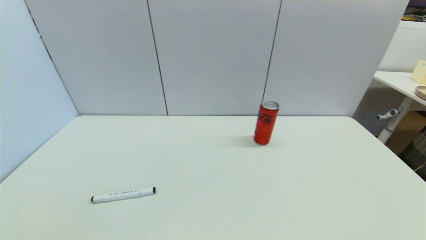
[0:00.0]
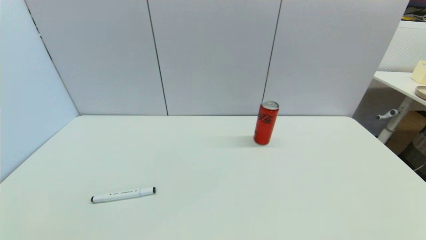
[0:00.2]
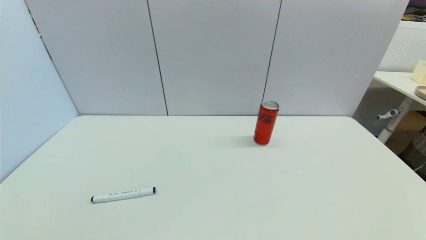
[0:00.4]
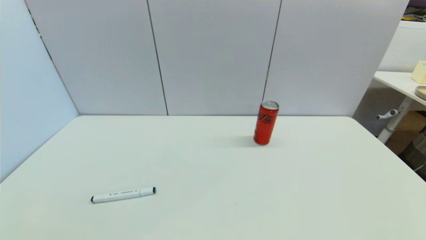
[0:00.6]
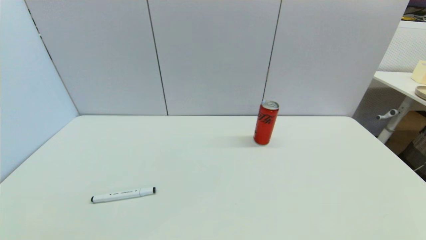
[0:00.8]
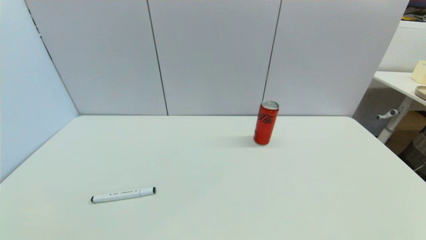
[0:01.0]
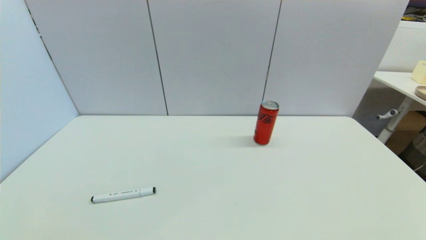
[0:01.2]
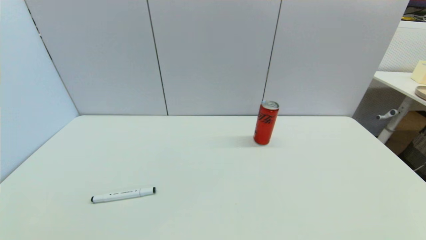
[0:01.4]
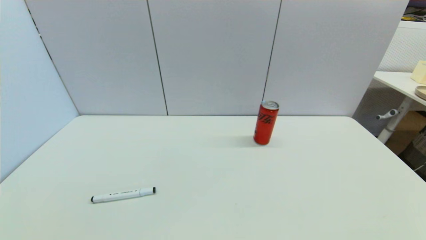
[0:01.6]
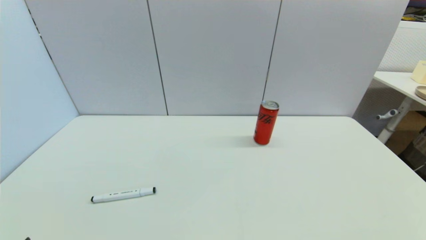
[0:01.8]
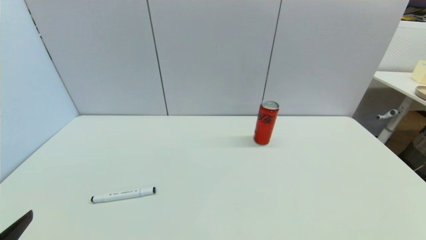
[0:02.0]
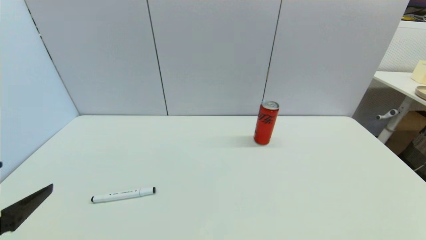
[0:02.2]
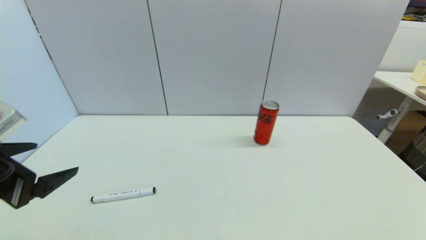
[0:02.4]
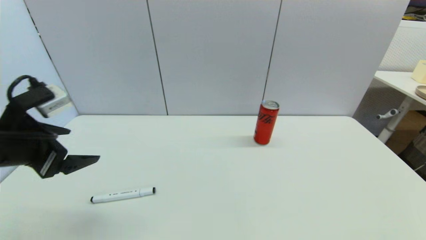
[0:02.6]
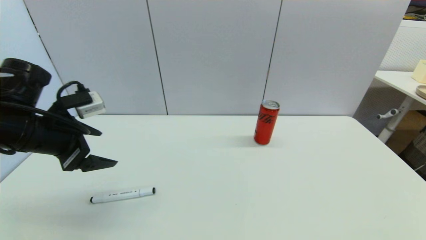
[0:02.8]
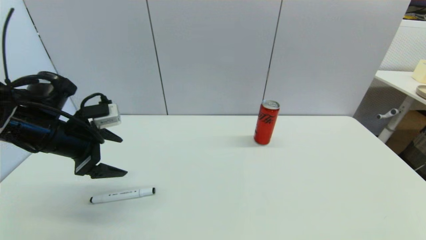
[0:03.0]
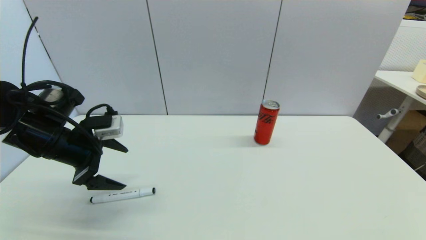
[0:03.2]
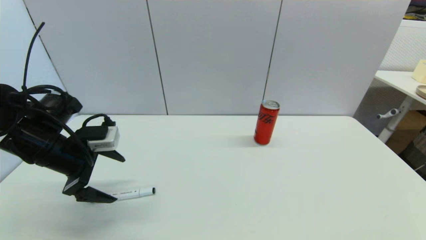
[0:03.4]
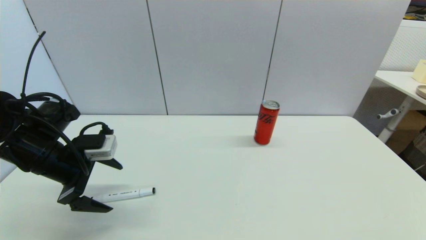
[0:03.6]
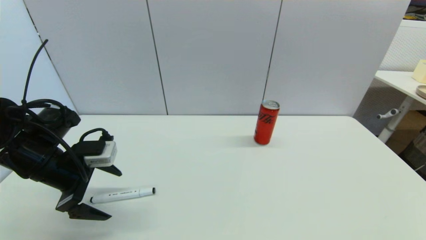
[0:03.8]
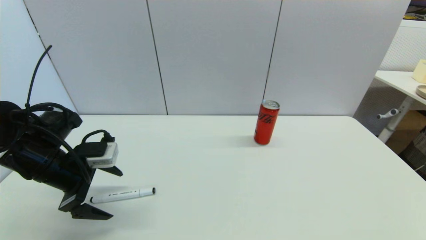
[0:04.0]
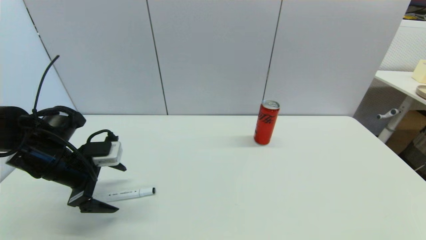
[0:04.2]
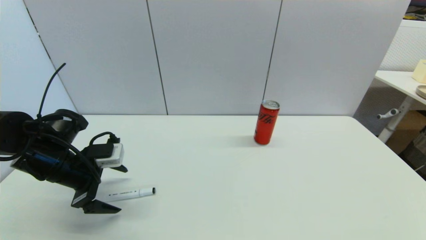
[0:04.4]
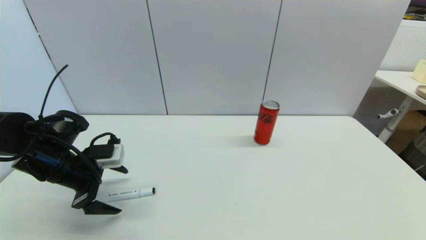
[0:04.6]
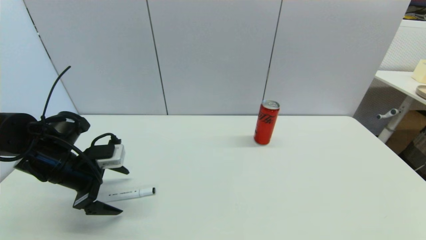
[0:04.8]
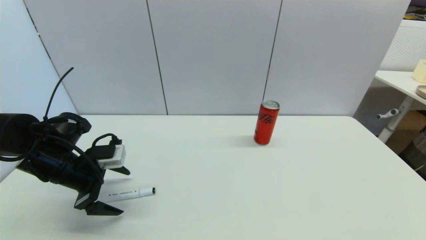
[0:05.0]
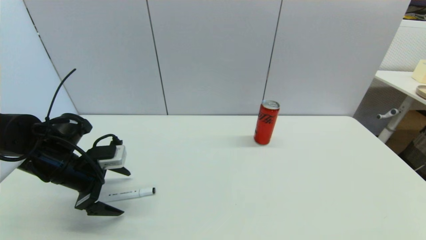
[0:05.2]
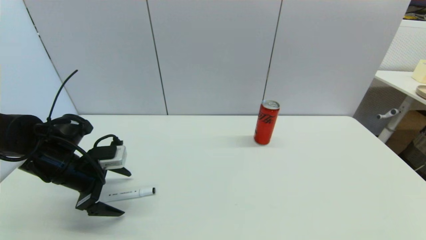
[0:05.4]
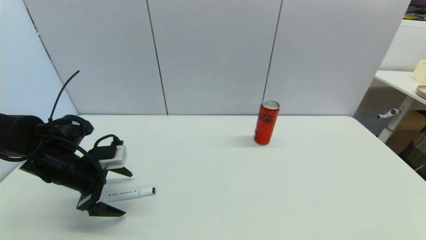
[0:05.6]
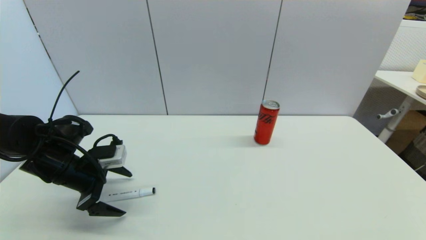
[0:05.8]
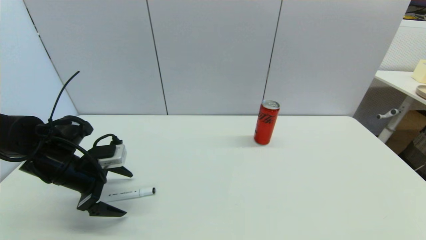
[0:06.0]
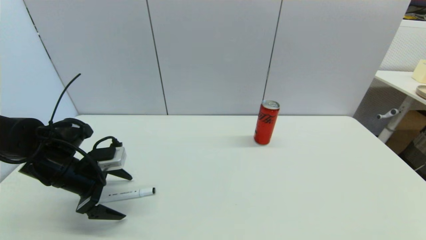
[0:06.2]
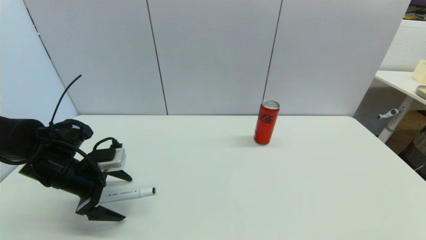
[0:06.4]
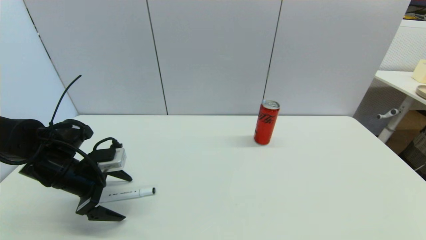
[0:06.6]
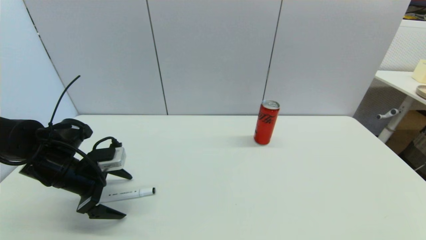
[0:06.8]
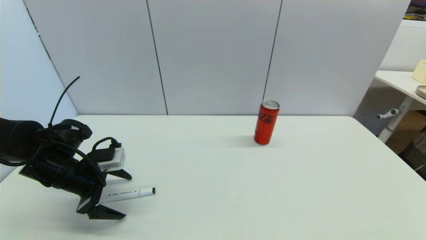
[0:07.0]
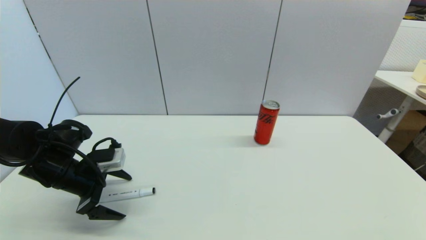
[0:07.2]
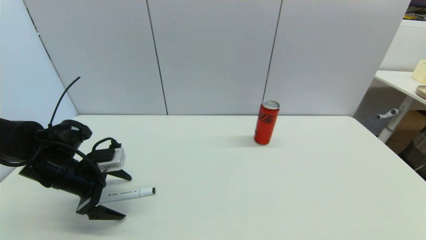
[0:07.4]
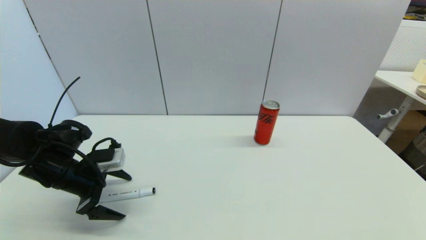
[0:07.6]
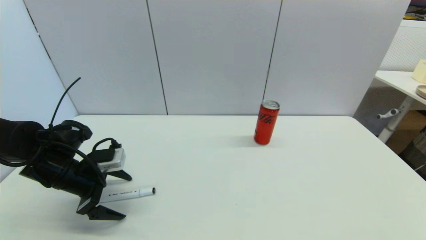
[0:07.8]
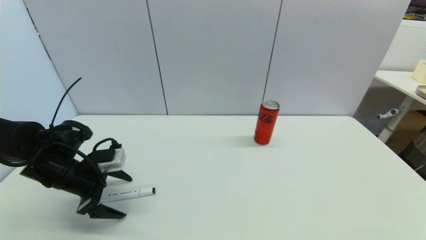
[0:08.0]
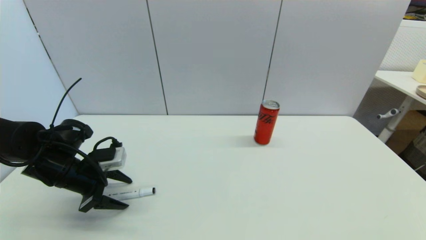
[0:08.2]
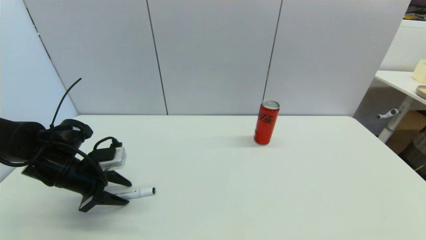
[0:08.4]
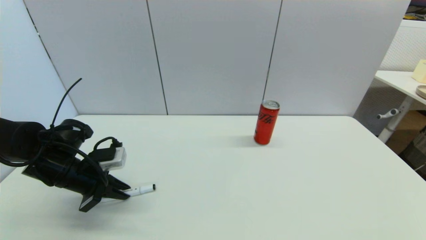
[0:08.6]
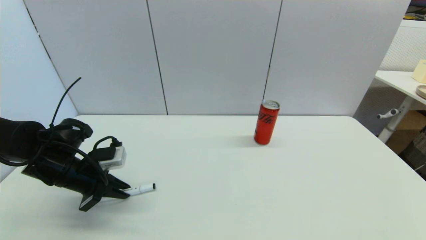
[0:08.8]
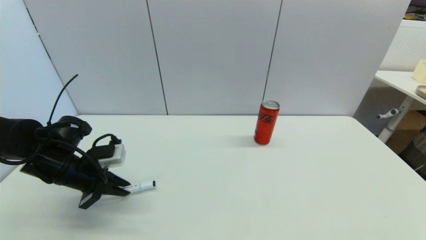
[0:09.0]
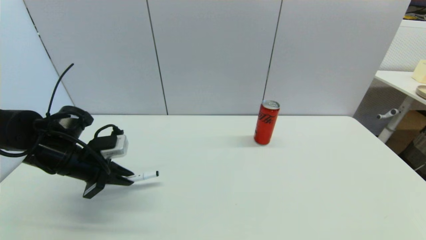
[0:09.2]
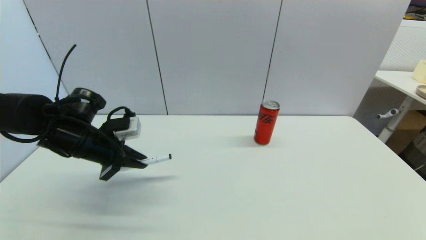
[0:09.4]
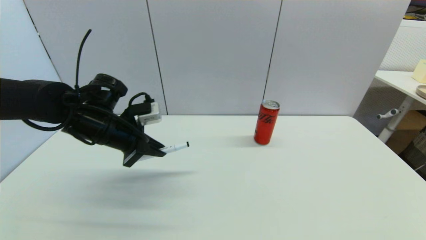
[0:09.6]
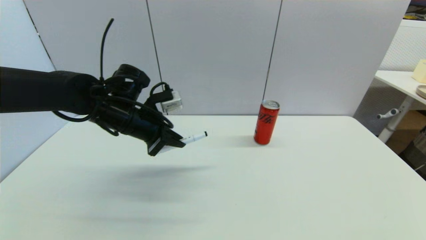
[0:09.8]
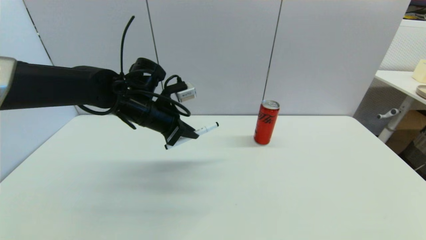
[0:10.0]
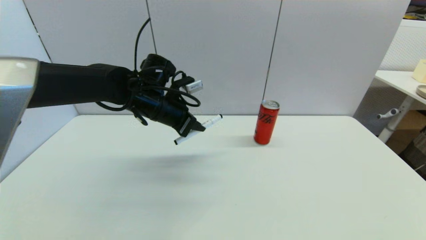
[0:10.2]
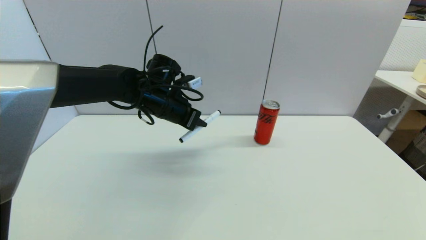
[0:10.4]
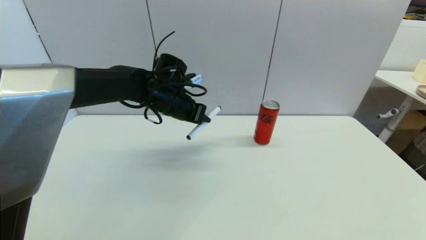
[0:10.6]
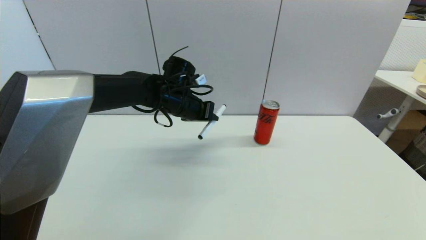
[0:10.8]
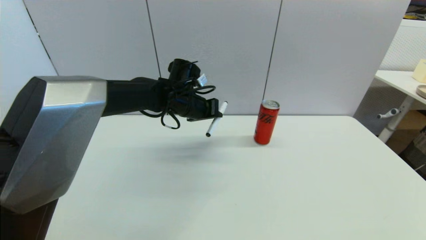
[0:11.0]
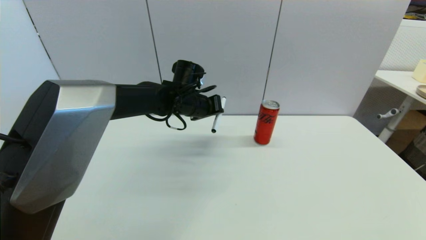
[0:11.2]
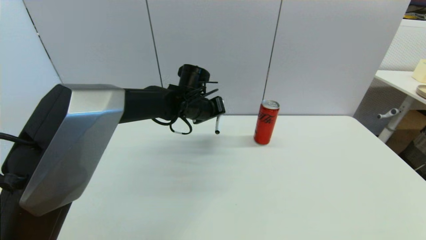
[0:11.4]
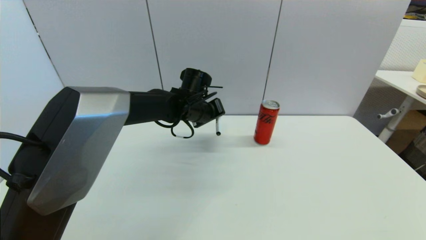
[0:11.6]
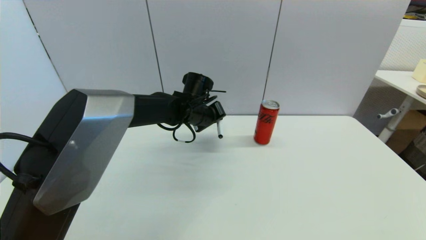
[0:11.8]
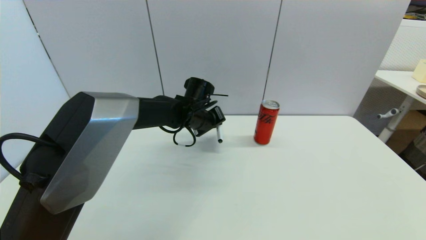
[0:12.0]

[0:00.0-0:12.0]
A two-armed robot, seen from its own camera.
Task of the whole recording: put the black marker in the designated position.
Step, 0:02.0 to 0:08.4: Grasp the Marker pen with left gripper.
0:01.6 to 0:03.0: The left gripper travels forward by approximately 30 cm.
0:03.0 to 0:04.4: The left gripper goes approximately 5 cm downward.
0:04.4 to 0:06.0: The grippers move only a little.
0:06.0 to 0:07.6: The two grippers keep their place.
0:07.6 to 0:09.0: The left gripper closes.
0:09.0 to 0:10.4: The left gripper goes approximately 25 cm to the right, forward and upward.
0:10.4 to 0:12.0: The left gripper is displaced to the right and downward by about 10 cm.

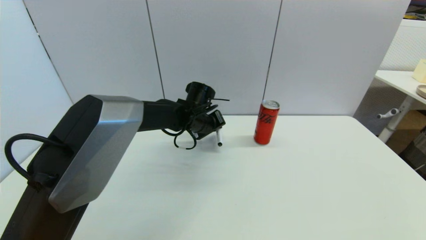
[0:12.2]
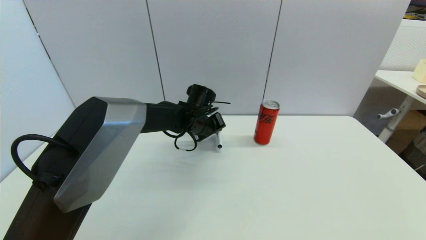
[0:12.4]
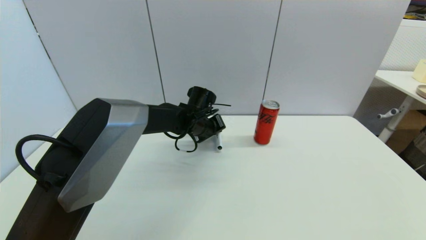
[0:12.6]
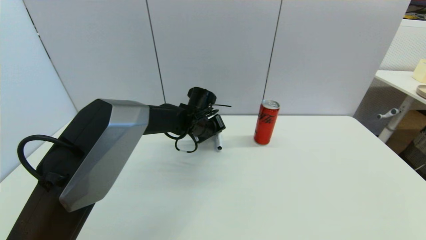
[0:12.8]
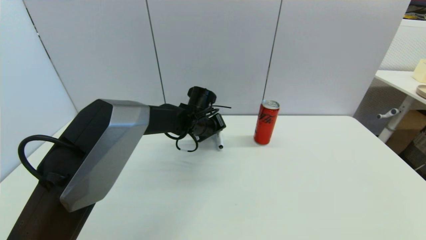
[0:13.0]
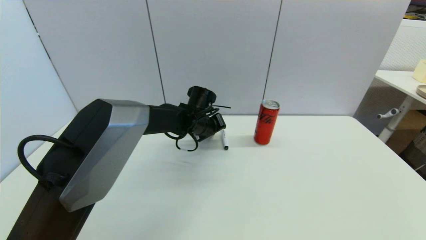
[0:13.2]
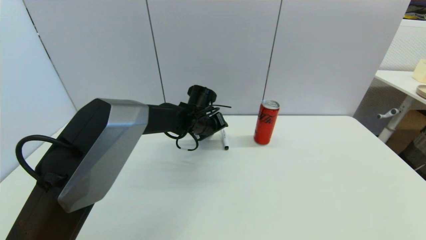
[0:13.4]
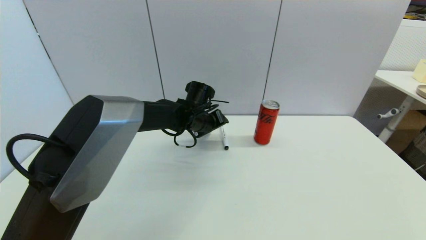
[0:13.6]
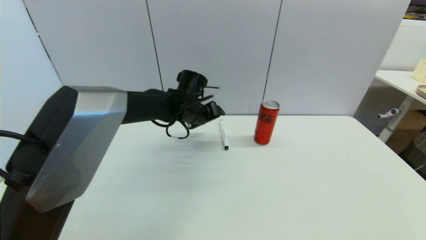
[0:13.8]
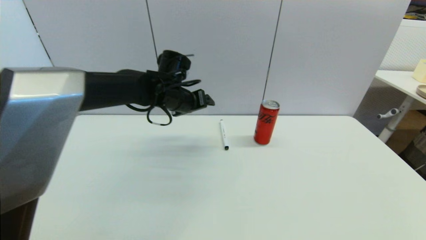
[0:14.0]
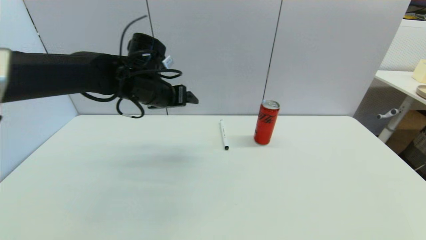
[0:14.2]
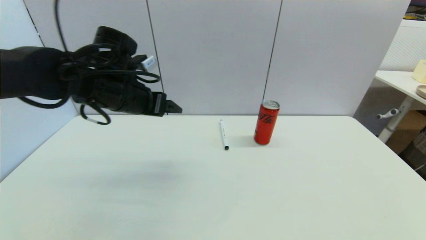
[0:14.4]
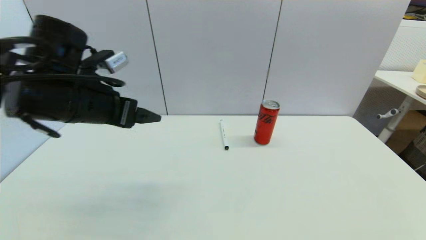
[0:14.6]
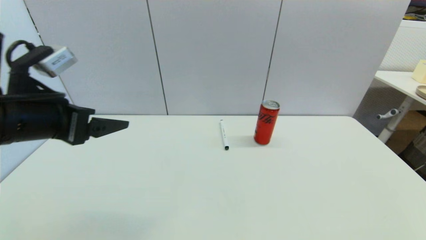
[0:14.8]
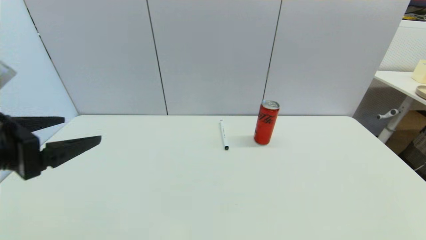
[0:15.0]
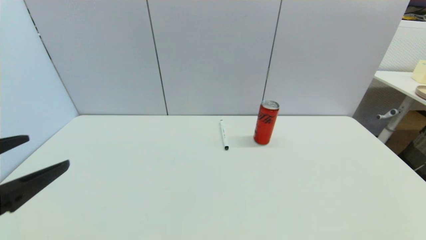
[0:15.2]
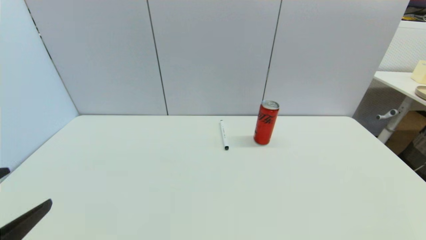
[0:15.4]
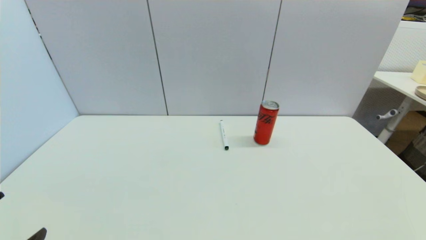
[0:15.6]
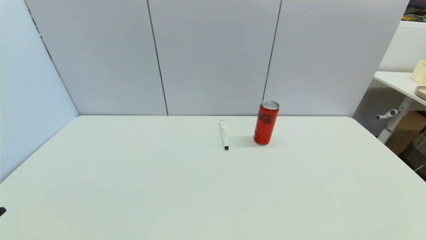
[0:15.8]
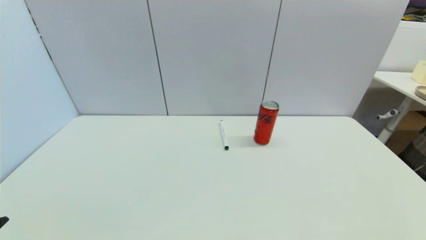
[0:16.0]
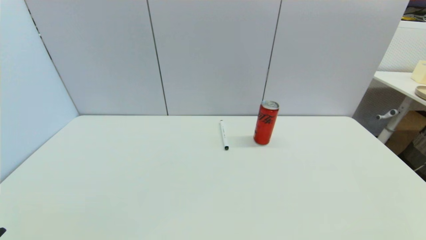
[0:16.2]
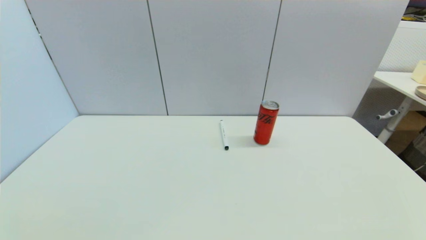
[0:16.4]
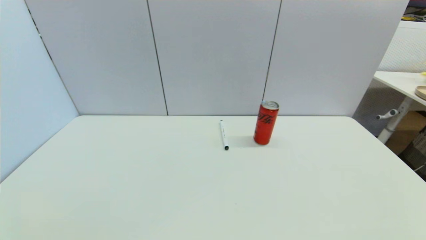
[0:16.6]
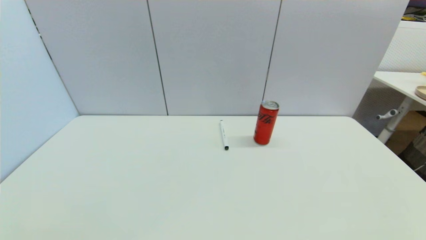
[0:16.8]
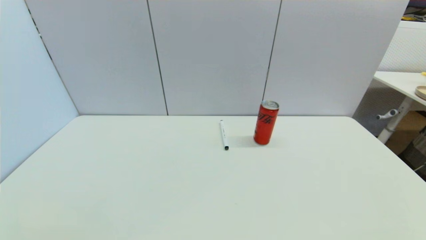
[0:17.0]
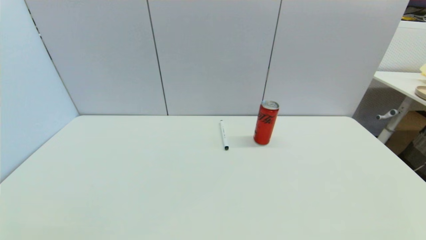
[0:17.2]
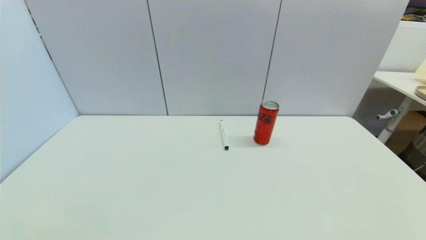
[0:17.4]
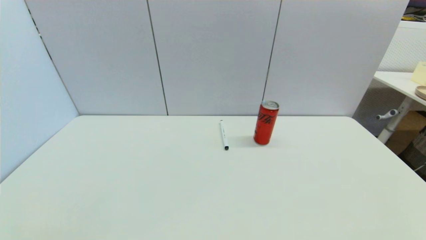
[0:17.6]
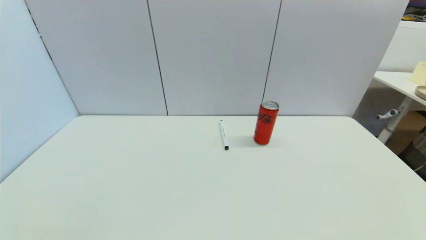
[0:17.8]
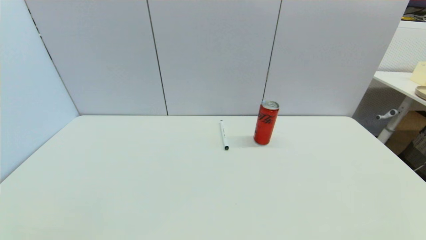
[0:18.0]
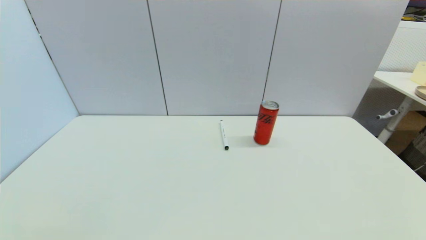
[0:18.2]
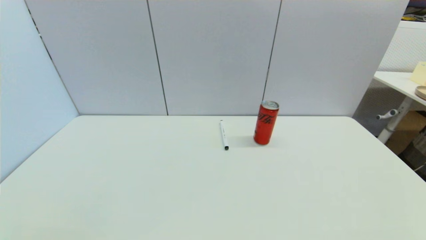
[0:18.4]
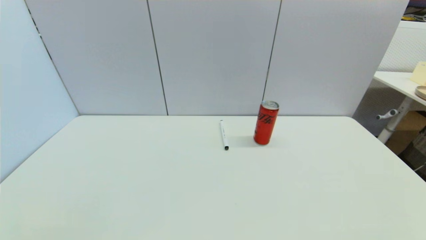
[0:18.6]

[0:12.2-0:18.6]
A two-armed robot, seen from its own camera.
Task of the whole recording: put the black marker in the designated position.
0:12.2 to 0:13.8: The left gripper opens.
0:13.8 to 0:15.4: The left gripper goes roughly 50 cm backward and to the left.
0:15.4 to 0:17.0: The left gripper shifts roughly 15 cm downward and backward.
0:17.0 to 0:18.6: Both grippers stay about where they are.
